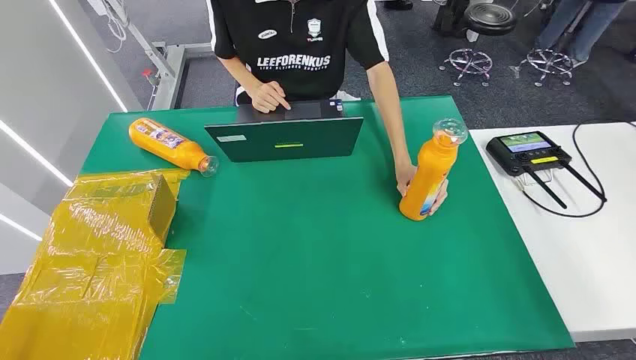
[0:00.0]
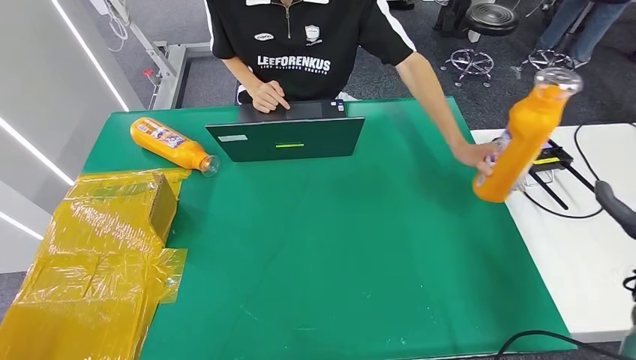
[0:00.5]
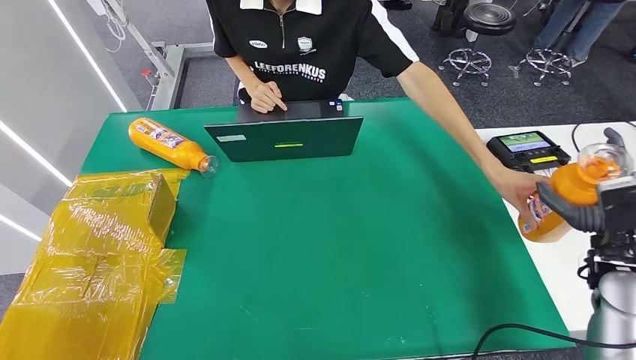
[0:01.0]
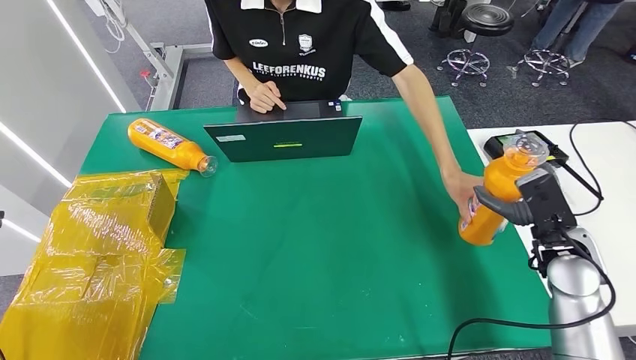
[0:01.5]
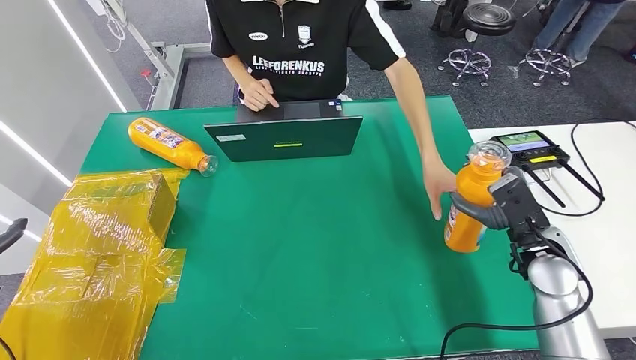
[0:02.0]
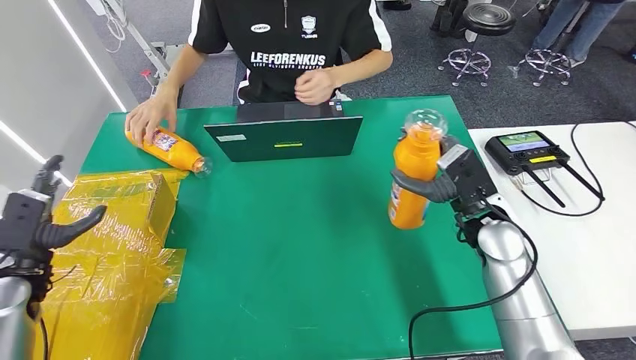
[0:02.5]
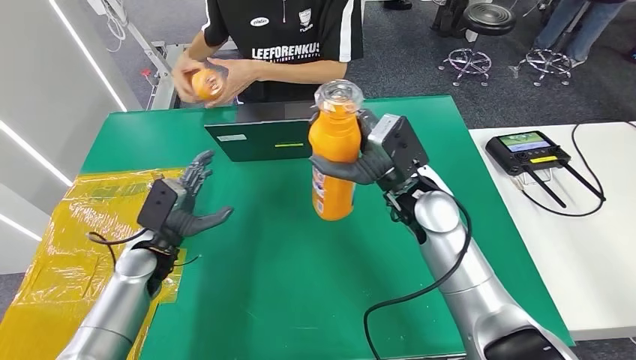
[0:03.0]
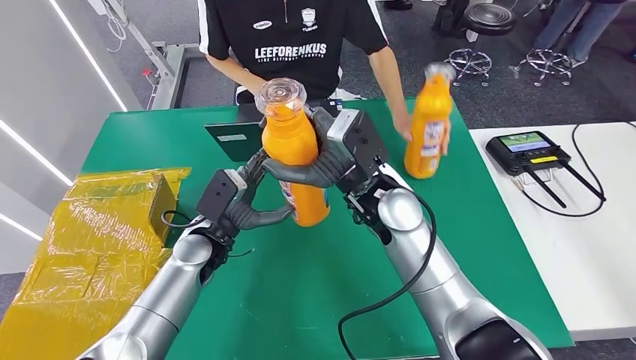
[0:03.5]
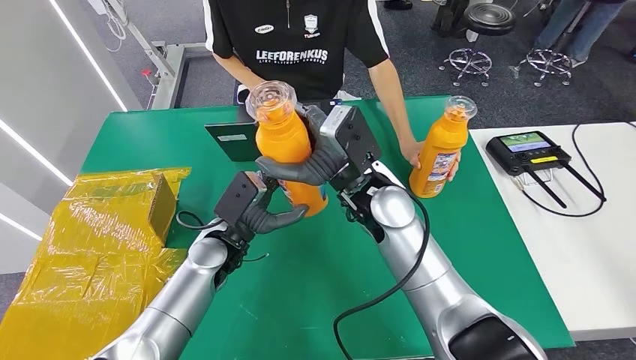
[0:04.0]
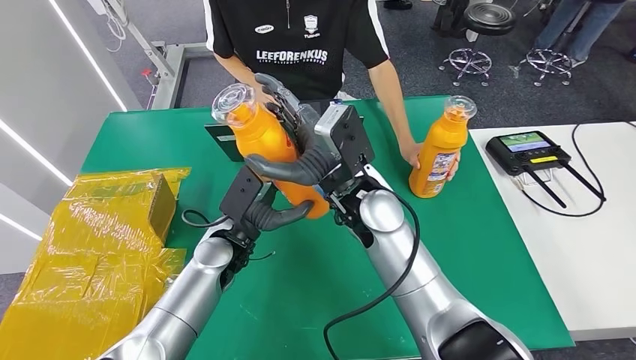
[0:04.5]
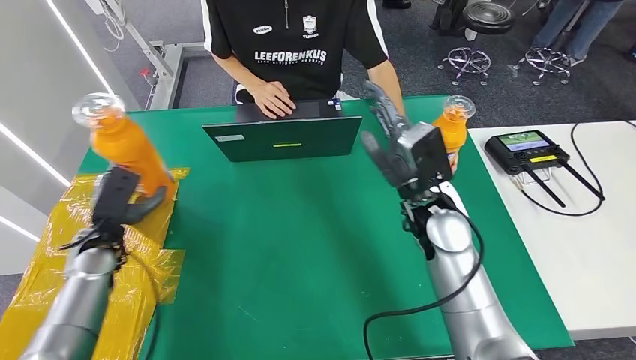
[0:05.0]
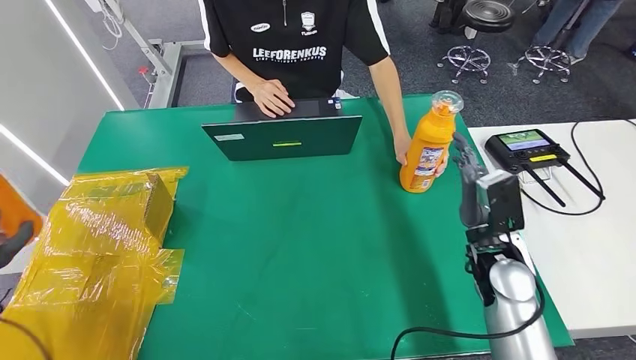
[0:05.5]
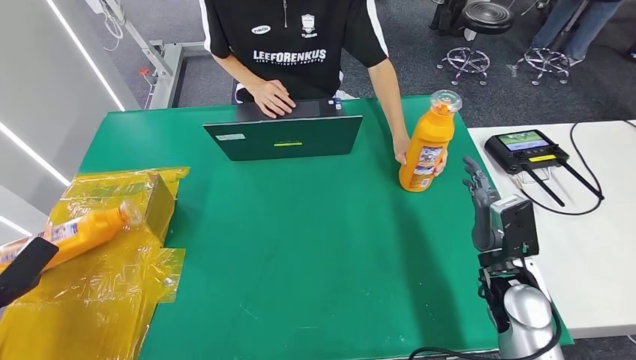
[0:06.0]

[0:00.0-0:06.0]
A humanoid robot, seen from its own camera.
Step, 0:00.0 to 0:02.5: Pick up the bottle from the table.
Step, 0:03.5 to 0:06.0: Turn the bottle to the front side.
